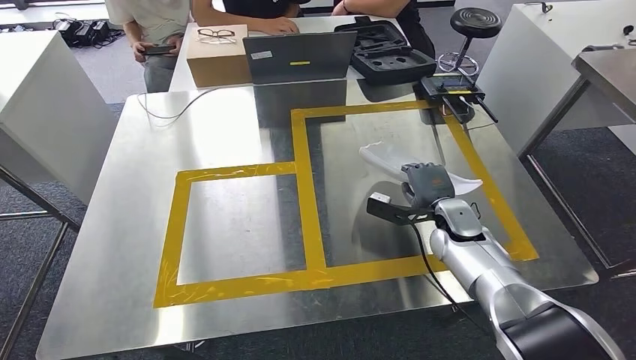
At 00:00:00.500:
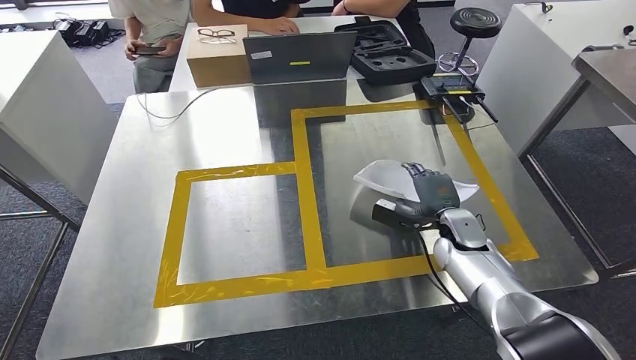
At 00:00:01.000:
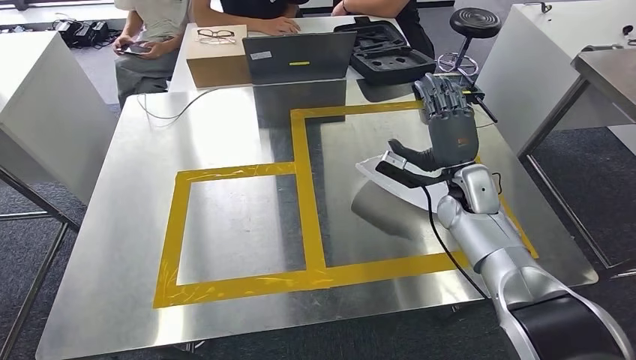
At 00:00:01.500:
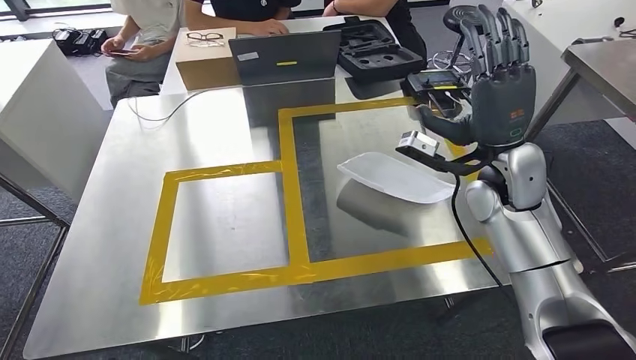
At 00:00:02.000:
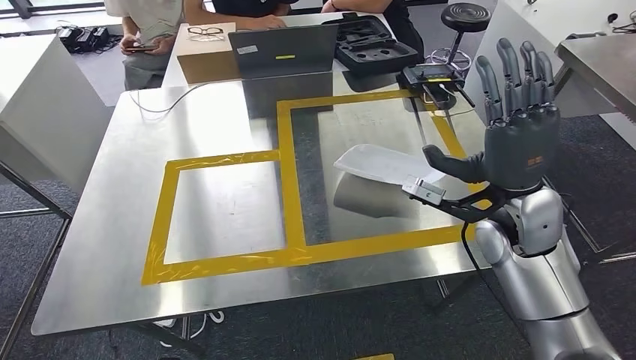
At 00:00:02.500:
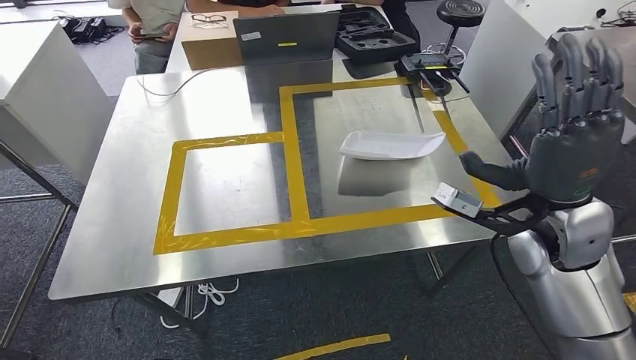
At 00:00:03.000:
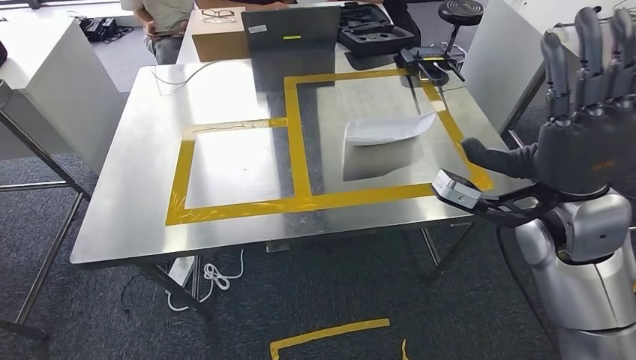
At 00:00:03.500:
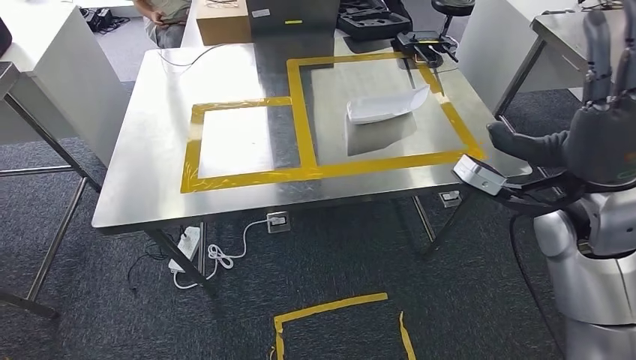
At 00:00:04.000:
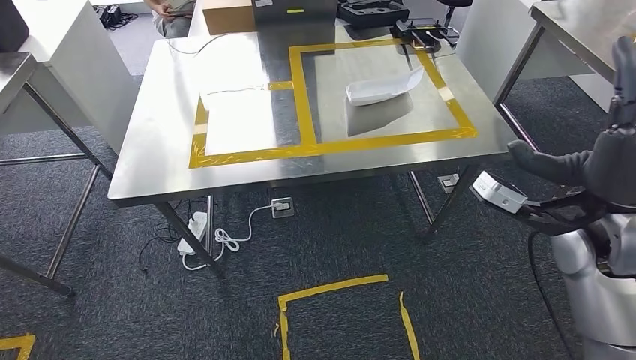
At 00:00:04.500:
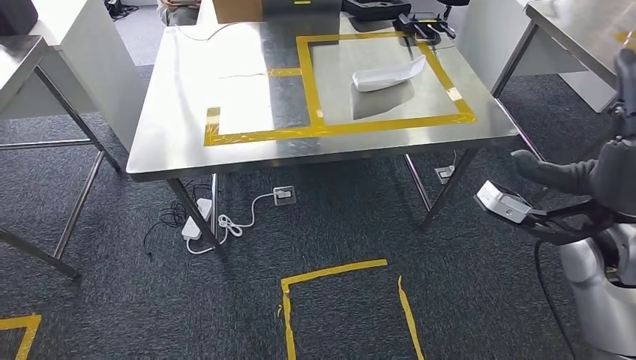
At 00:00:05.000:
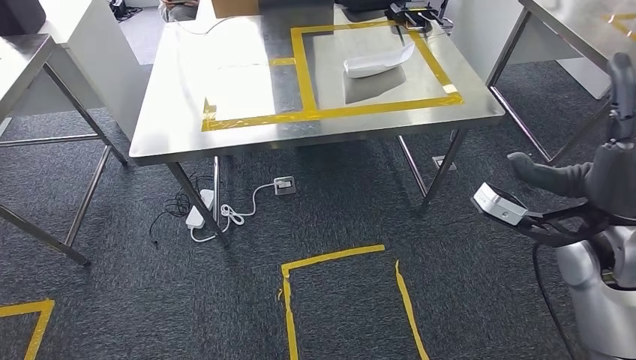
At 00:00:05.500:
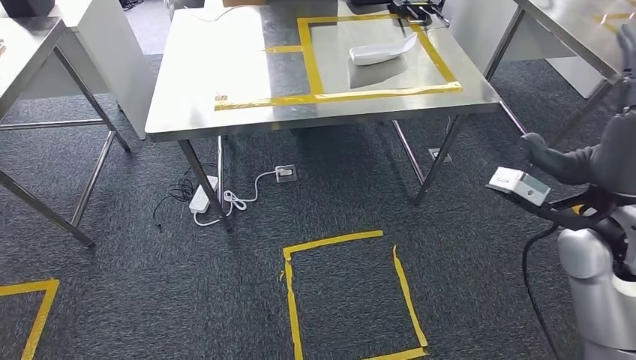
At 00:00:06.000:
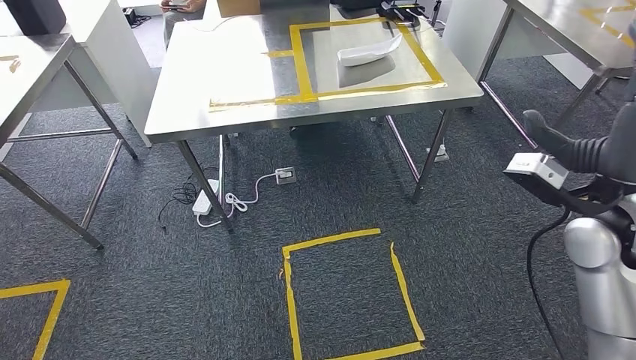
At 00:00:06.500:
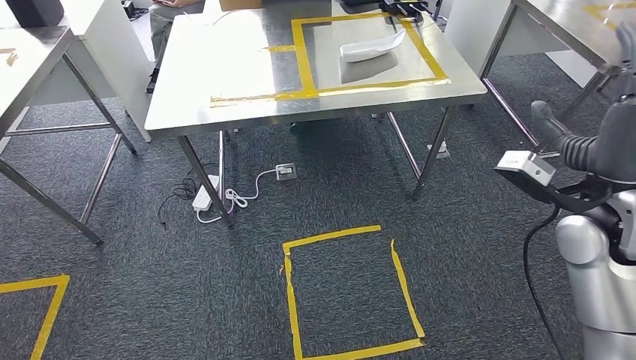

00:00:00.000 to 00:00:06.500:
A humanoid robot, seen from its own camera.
Step, 00:00:02.500 to 00:00:06.500: Return to the initial position at the workbench.

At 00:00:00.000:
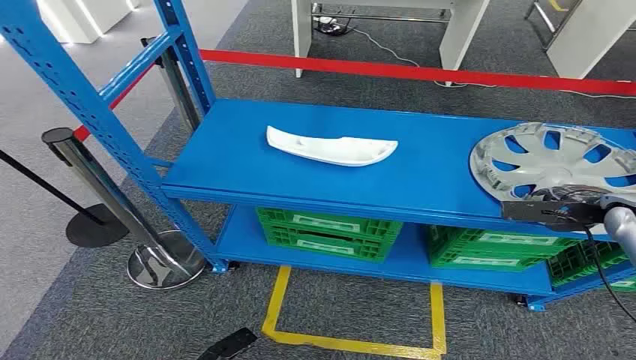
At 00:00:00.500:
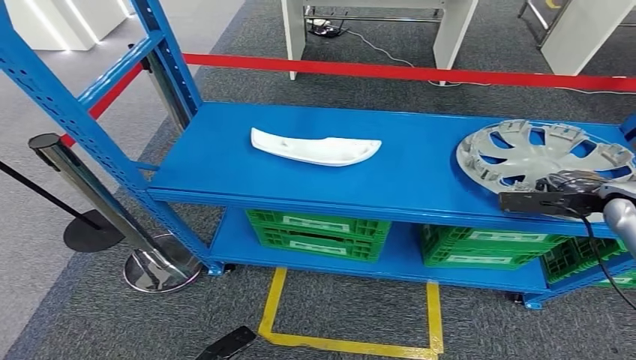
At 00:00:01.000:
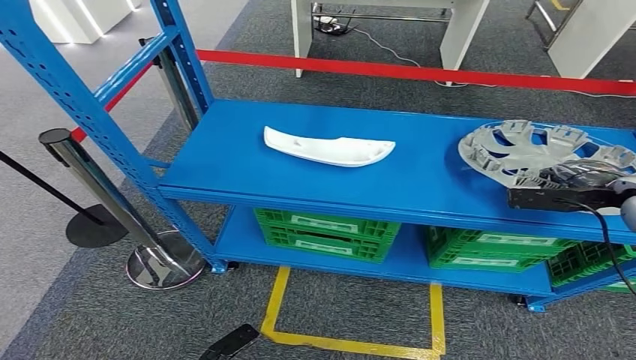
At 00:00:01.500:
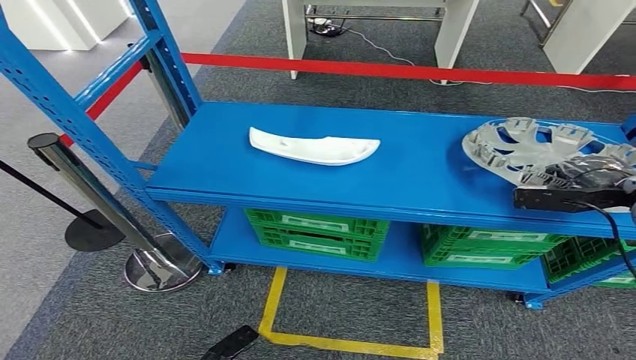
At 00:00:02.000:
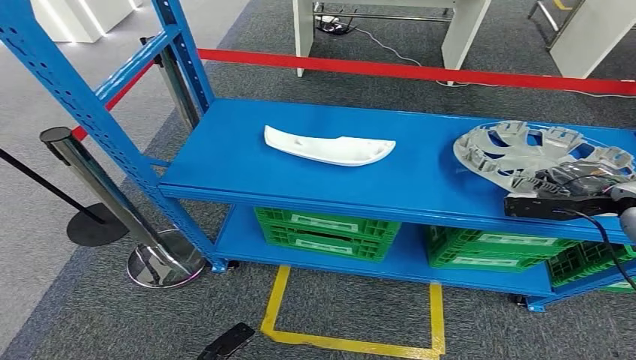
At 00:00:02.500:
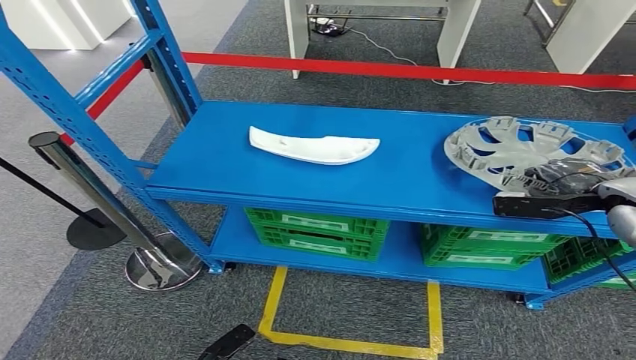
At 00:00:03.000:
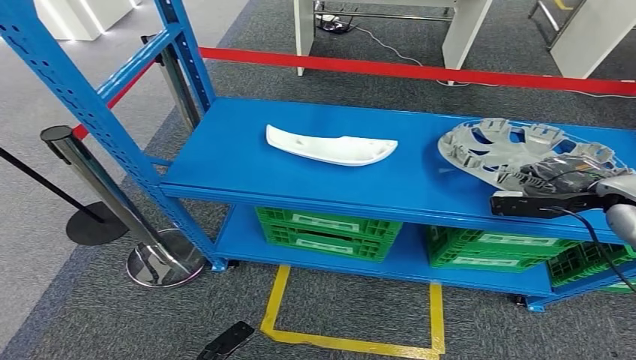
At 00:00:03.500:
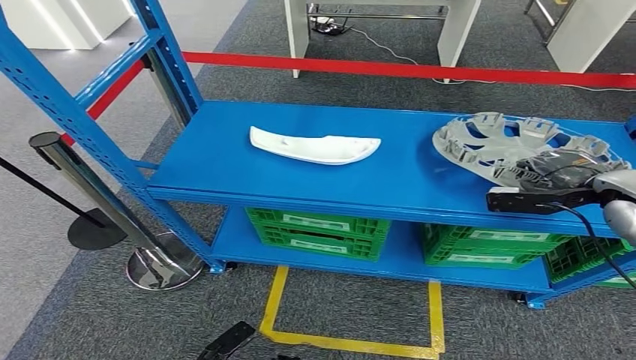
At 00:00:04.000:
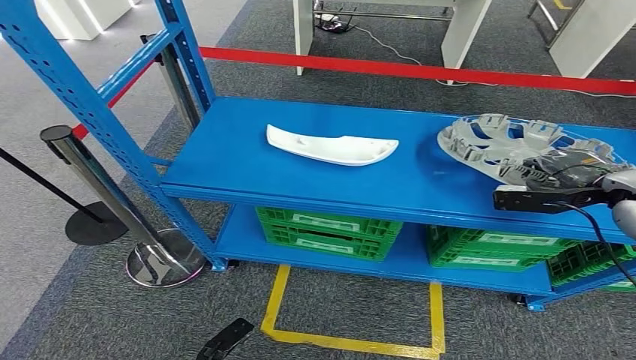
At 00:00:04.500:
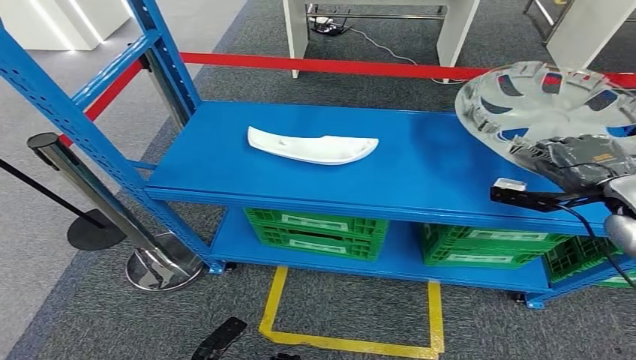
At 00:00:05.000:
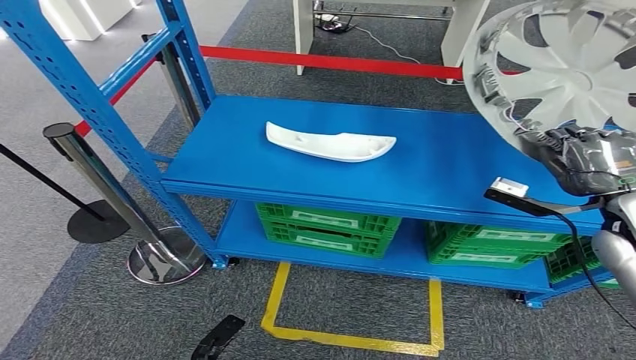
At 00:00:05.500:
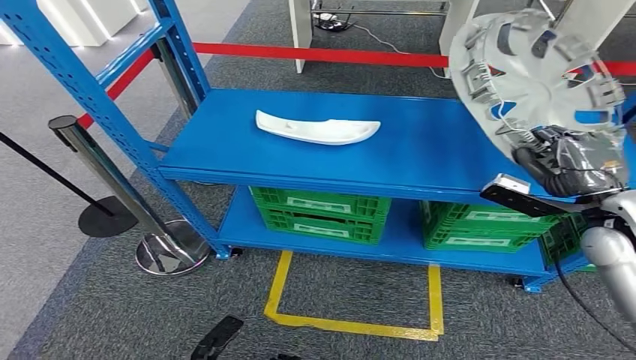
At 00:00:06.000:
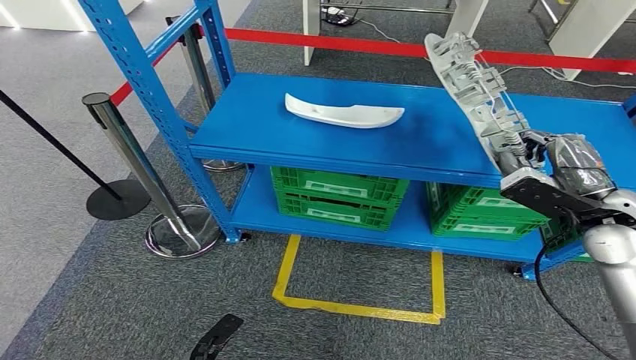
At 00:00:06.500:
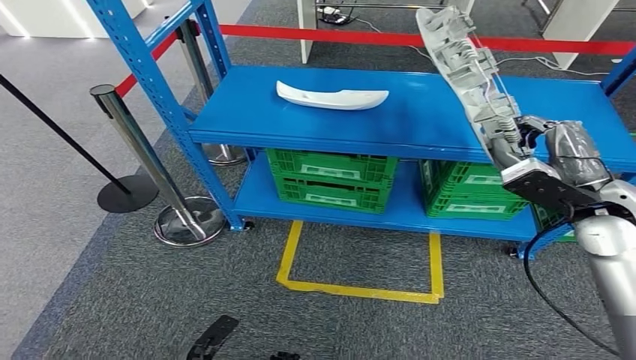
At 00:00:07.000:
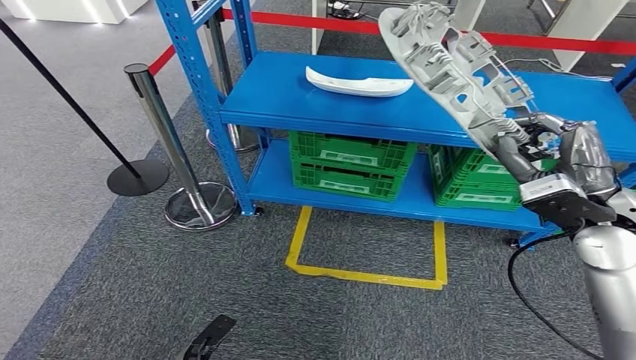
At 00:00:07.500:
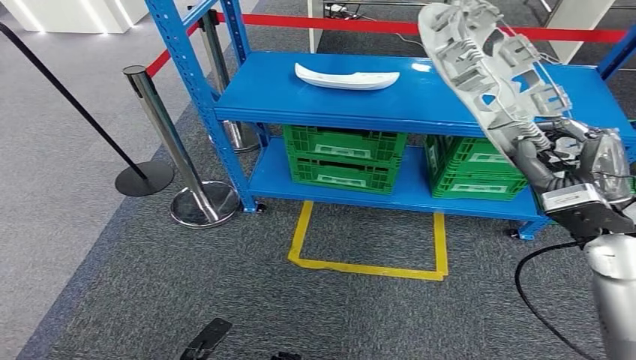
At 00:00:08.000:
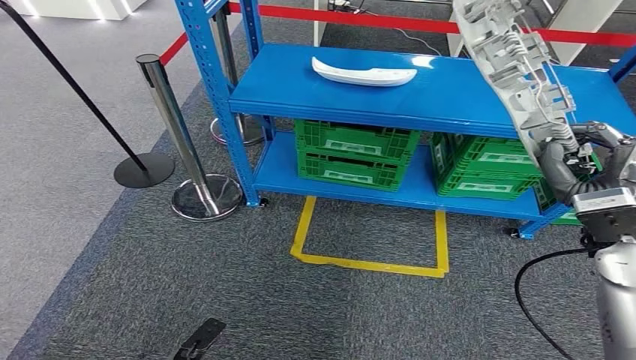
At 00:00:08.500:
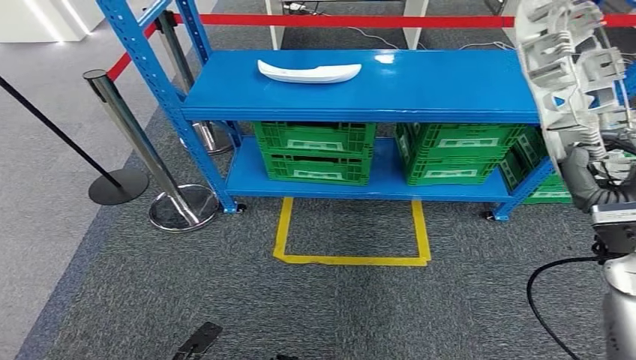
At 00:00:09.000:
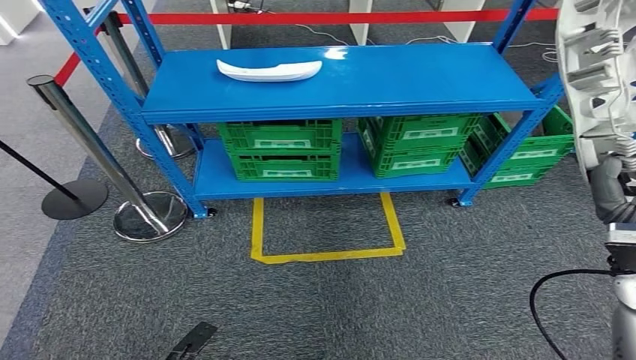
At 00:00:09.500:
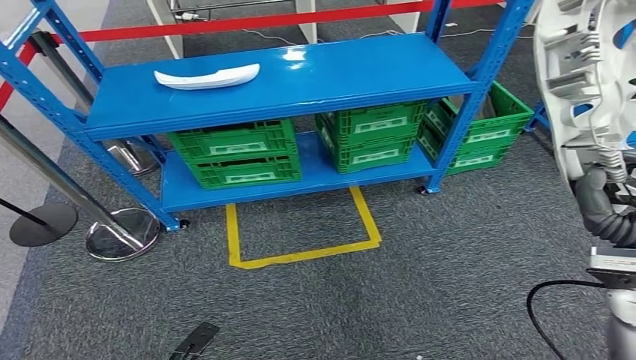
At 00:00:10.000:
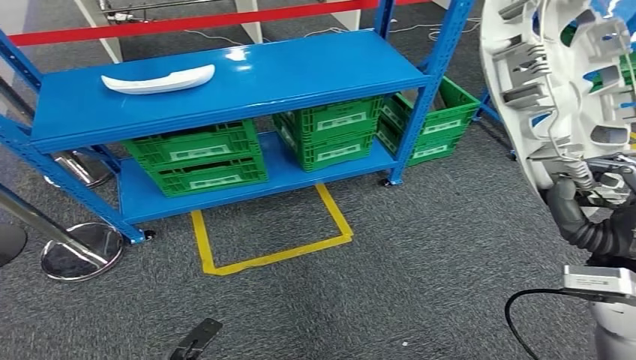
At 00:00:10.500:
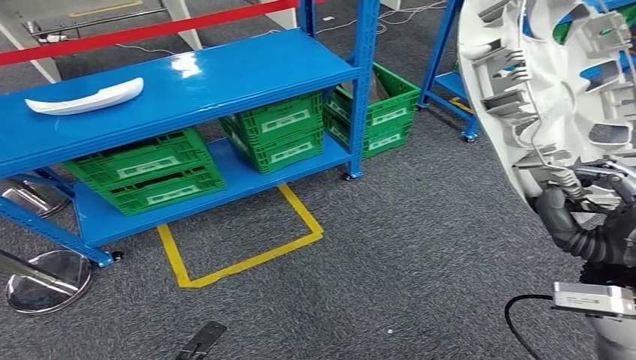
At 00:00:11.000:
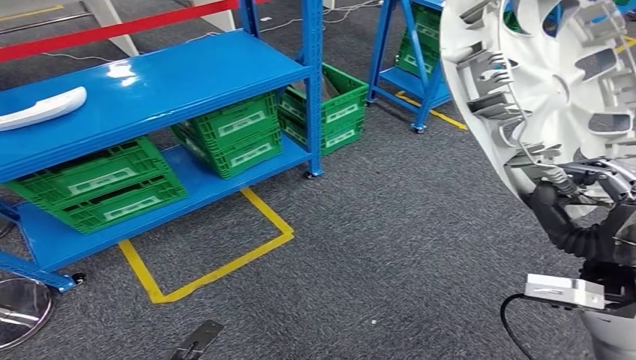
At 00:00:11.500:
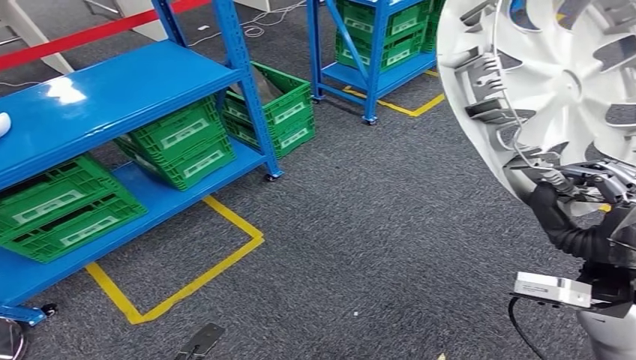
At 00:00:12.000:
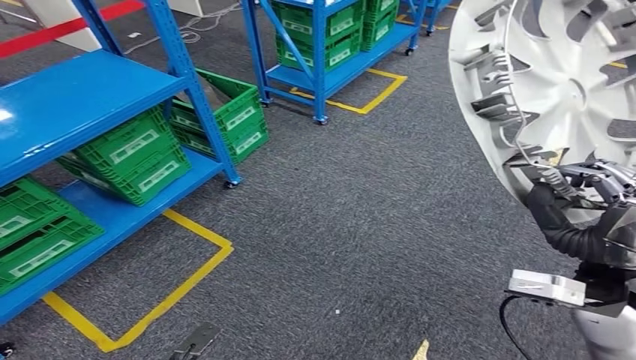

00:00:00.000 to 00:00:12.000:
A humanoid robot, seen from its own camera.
Step, 00:00:00.000 to 00:00:05.500: Pick up the small component from the shelf.
00:00:02.000 to 00:00:04.000: The hands move only a little.

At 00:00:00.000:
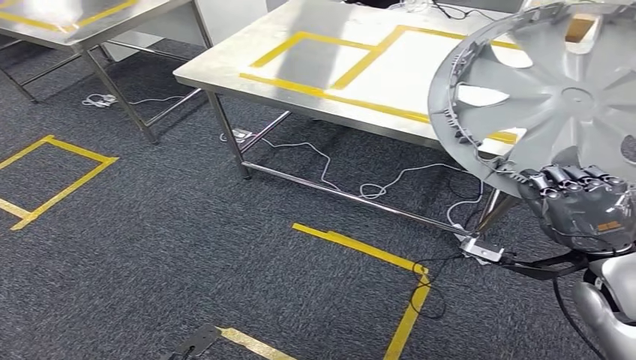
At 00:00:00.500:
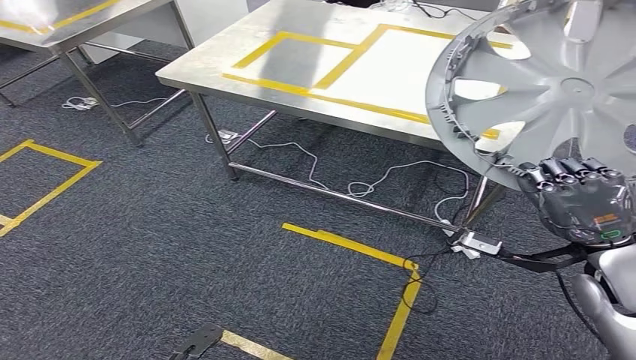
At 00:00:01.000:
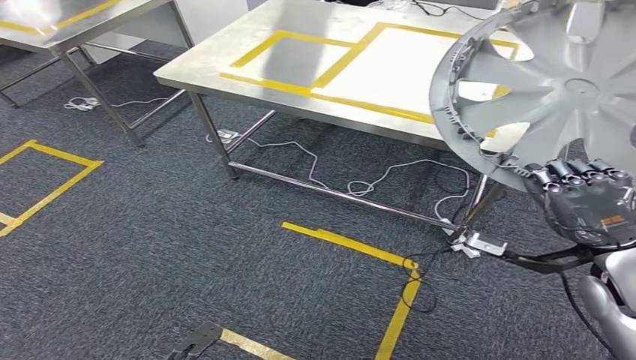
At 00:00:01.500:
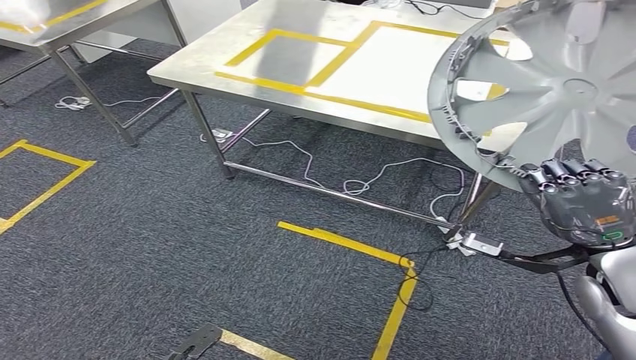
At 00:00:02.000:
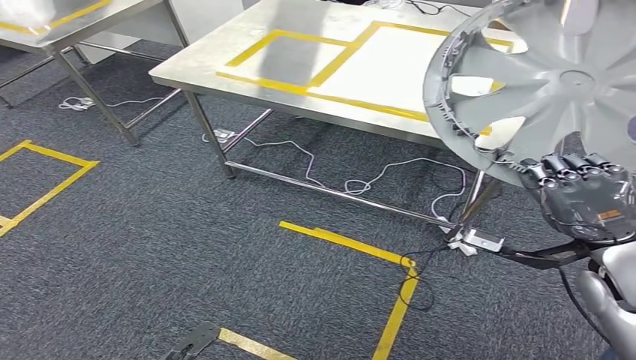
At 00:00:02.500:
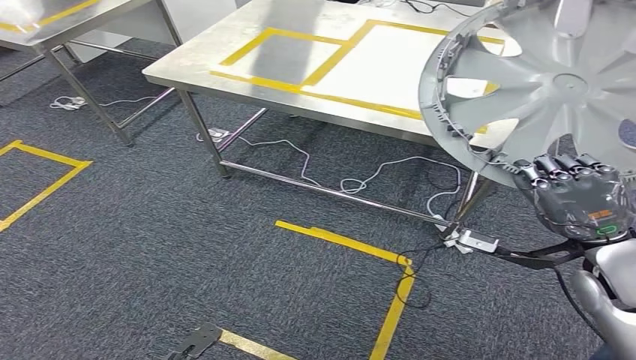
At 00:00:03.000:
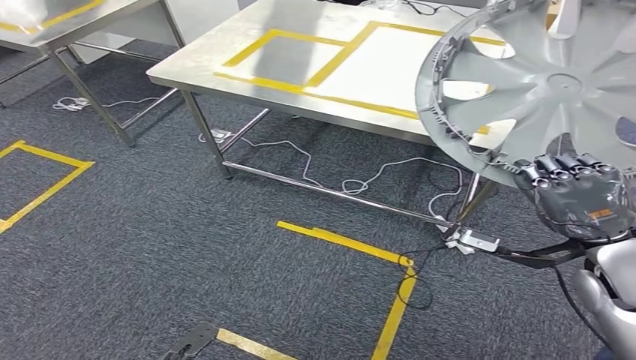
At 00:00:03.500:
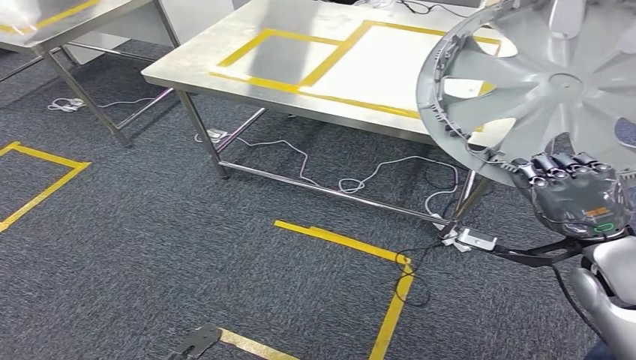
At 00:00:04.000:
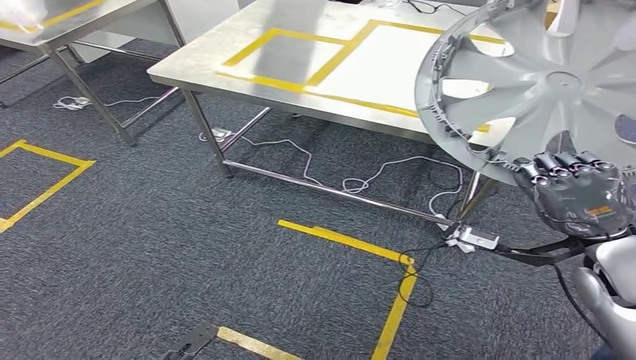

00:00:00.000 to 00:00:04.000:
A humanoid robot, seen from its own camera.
00:00:02.000 to 00:00:04.000: Neither hand changes place.
